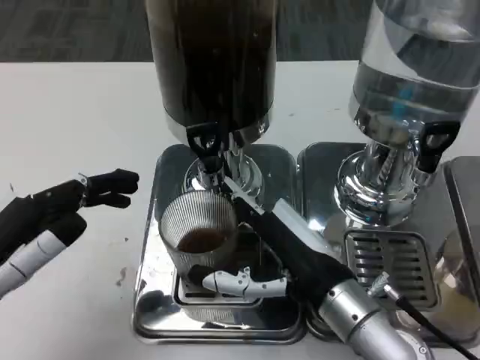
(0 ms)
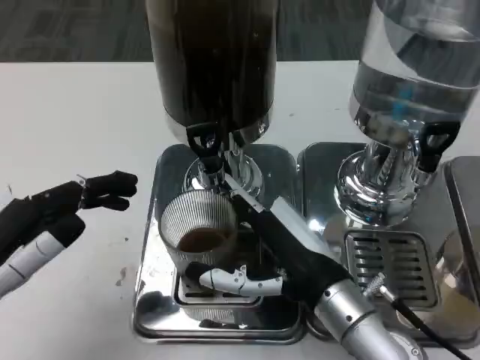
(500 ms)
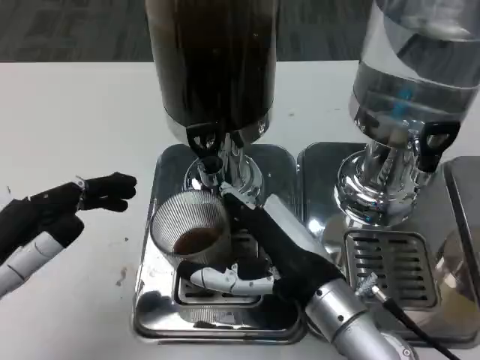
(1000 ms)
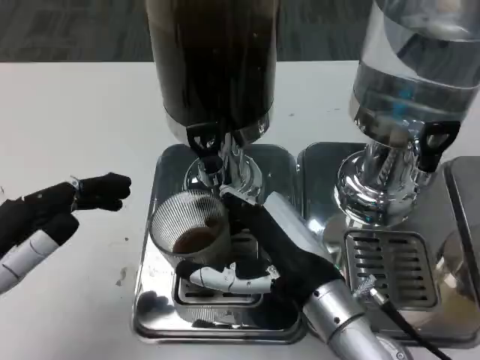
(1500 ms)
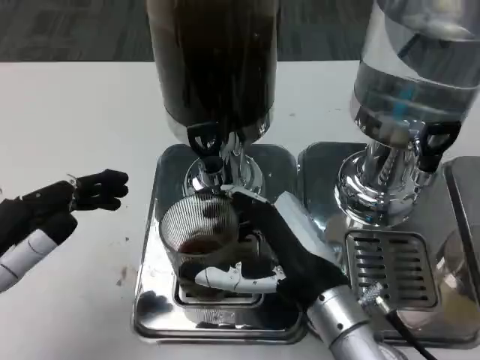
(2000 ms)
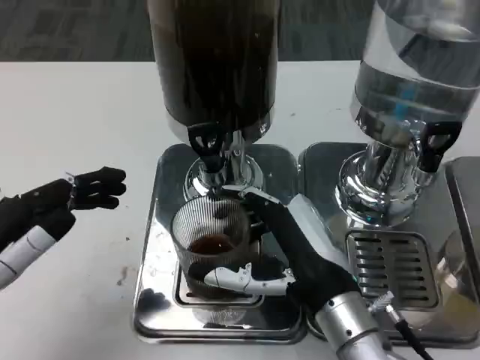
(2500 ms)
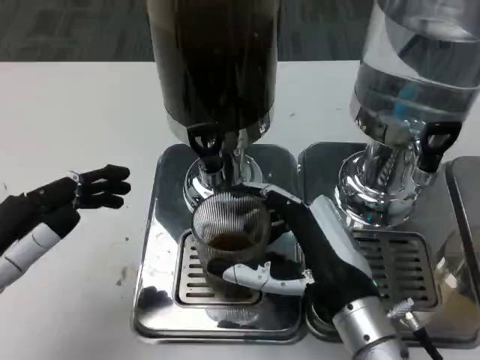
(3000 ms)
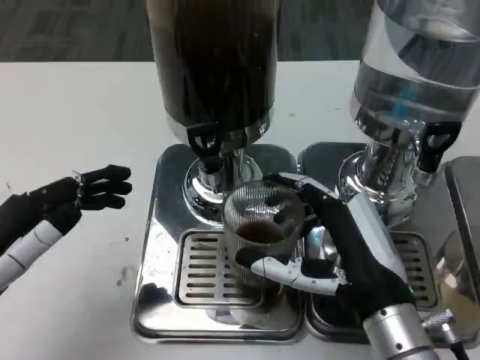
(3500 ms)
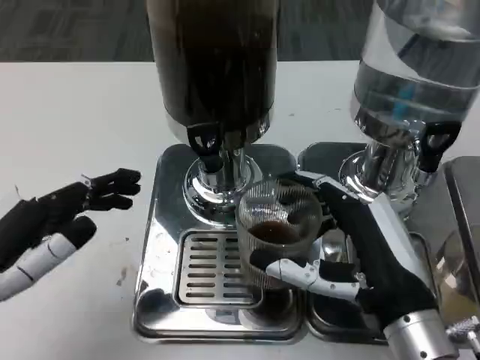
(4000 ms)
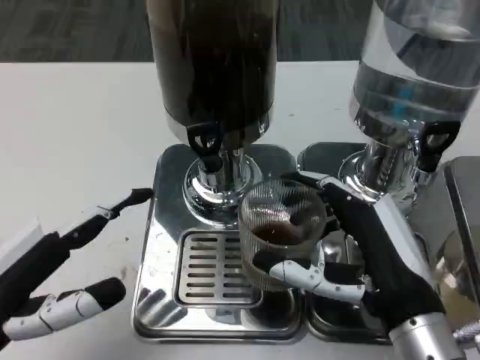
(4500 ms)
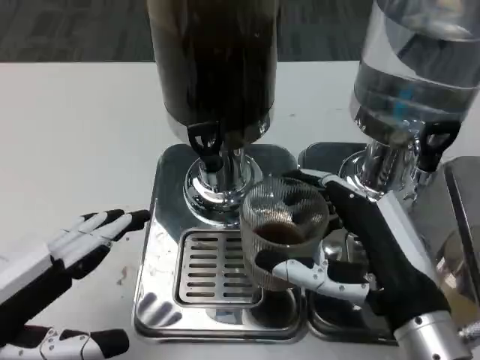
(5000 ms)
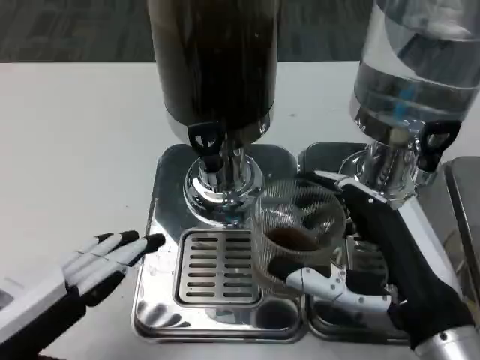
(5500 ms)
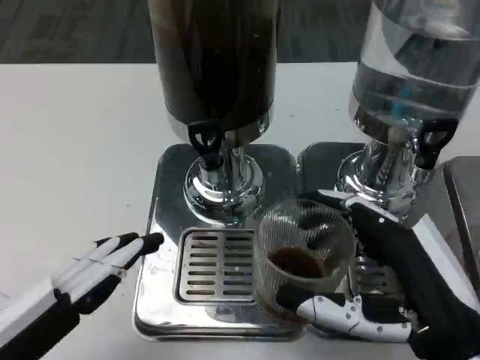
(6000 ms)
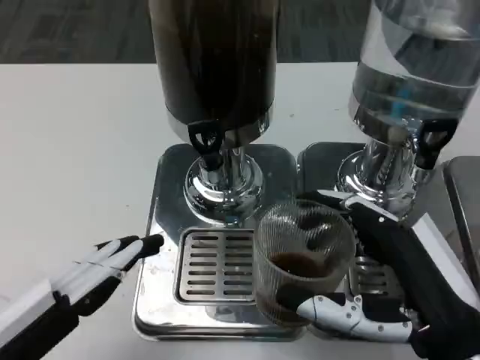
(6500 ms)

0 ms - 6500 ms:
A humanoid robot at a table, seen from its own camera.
Task of the whole recording: Grasp the cup under the faucet to collect the drink, then remove the cup.
0 ms - 2000 ms: The hands move only a little.
2000 ms - 4500 ms: The right hand moves to the right, some 5 cm.
4500 ms - 6500 ms: The right hand changes place by some 5 cm.

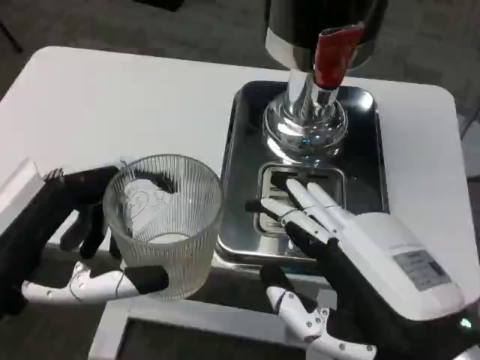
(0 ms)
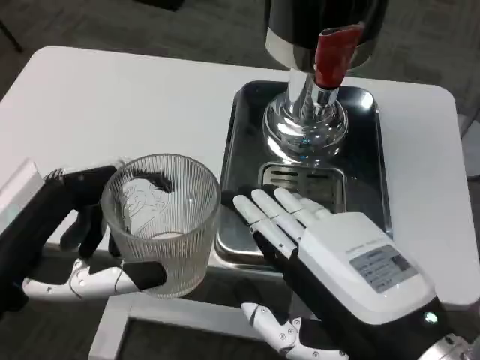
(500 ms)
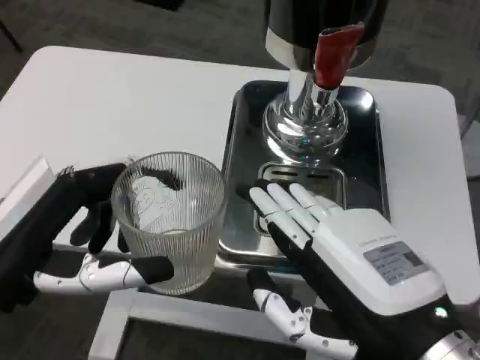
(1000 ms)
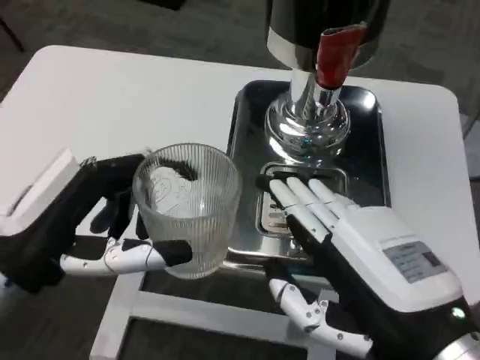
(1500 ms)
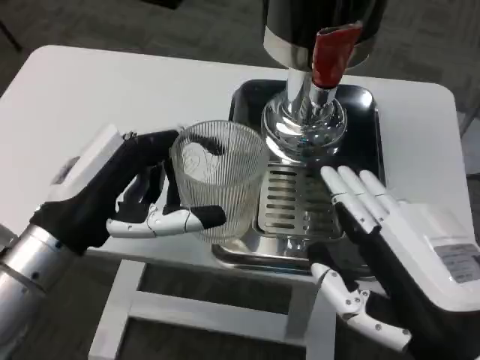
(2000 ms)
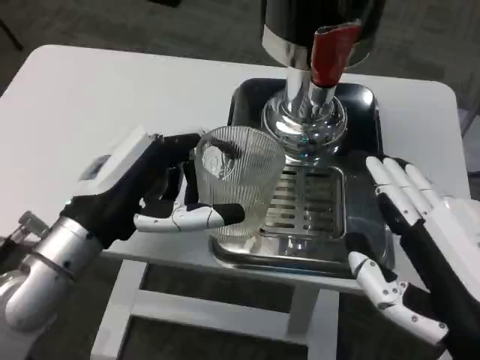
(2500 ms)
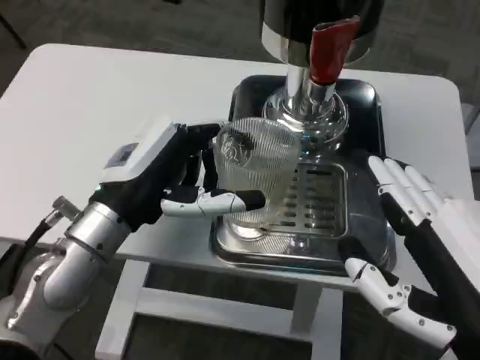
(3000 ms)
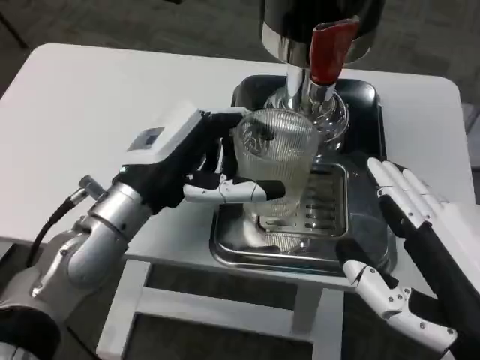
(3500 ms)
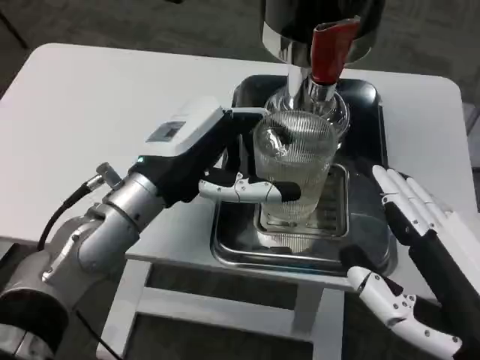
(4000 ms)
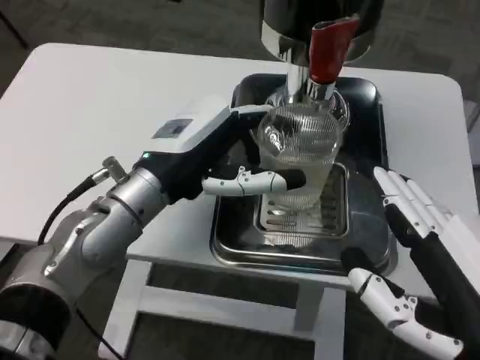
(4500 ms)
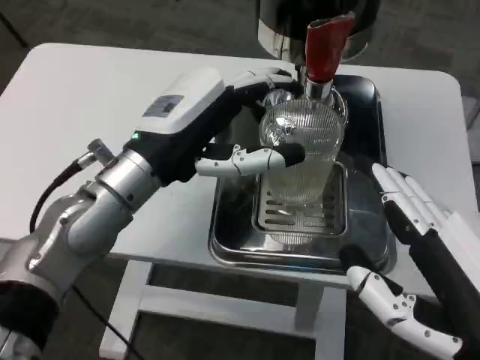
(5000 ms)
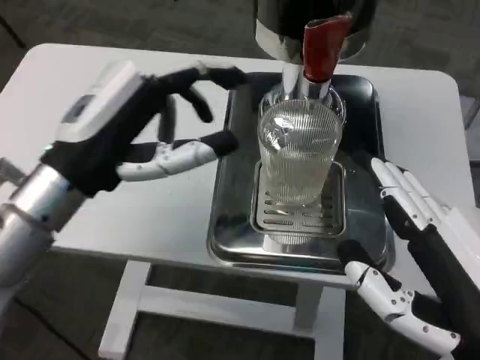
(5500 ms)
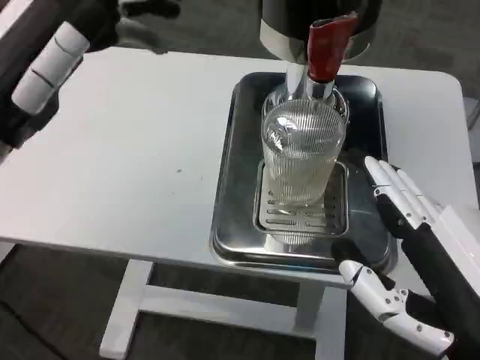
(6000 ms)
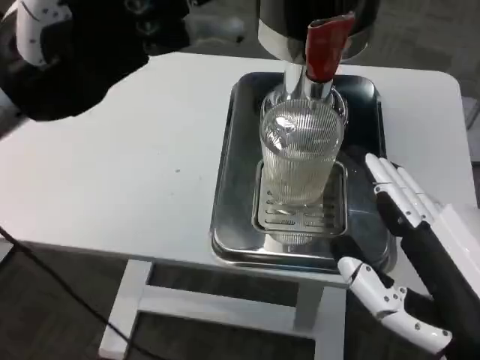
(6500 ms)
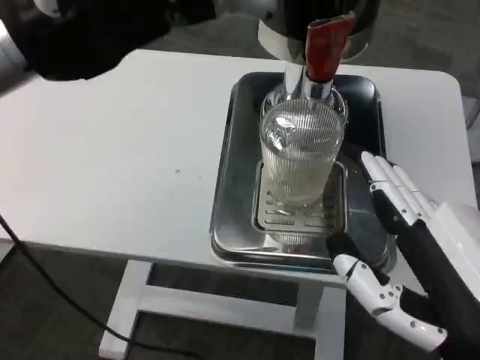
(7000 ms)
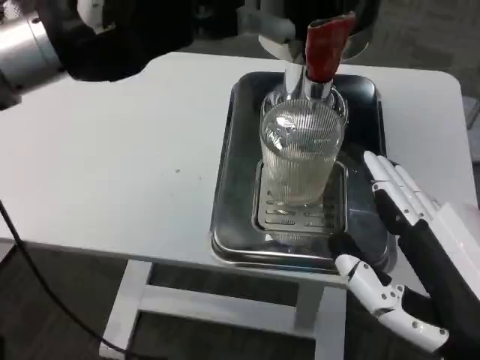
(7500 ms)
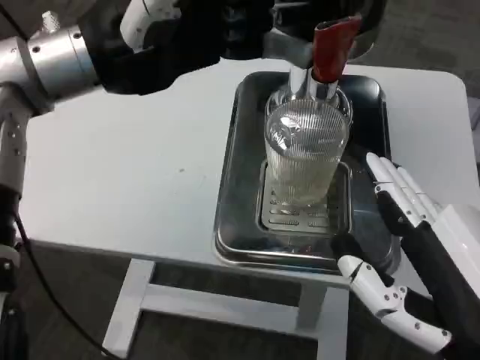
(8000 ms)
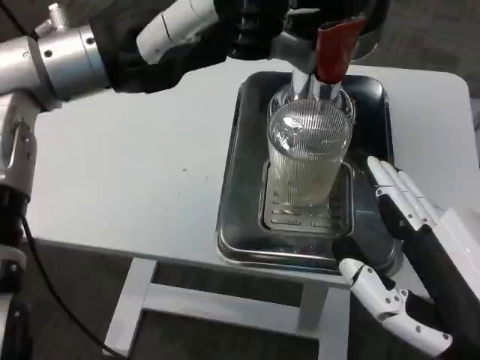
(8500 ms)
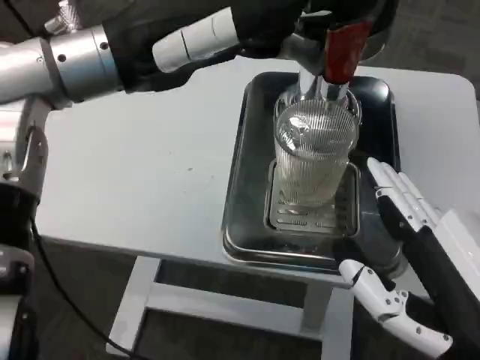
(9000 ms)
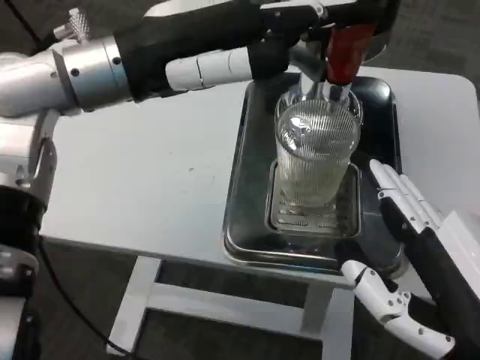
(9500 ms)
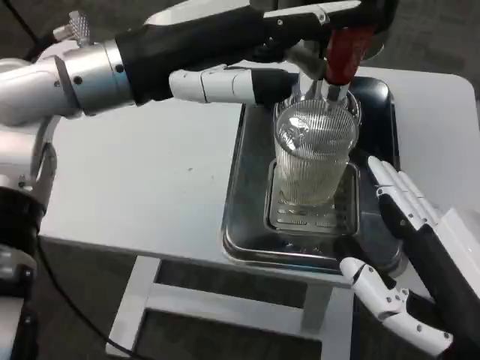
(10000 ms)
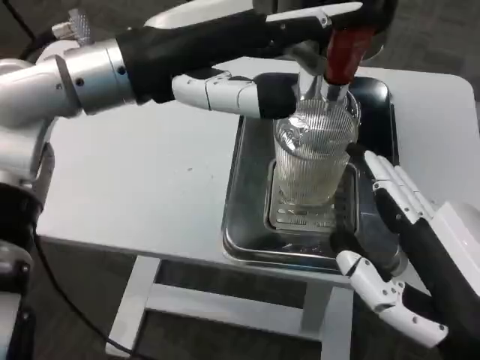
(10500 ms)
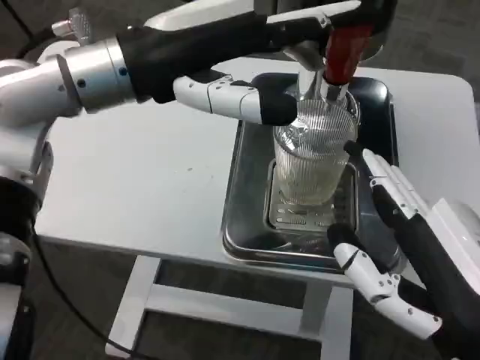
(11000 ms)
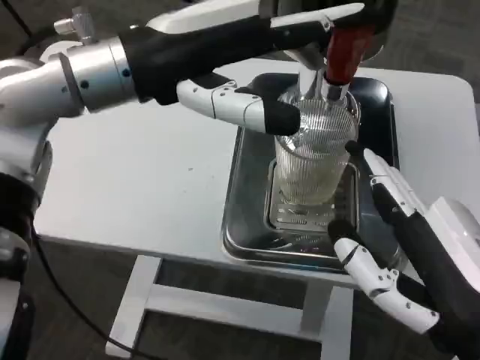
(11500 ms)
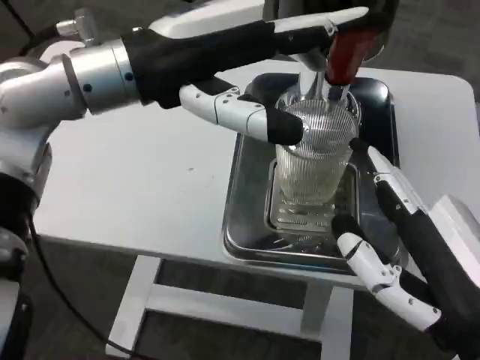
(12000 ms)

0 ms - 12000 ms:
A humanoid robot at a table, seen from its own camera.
Task of the whole recording: Grasp the cup under the faucet to collect the drink, then remove the cup.
0 ms - 2000 ms: The left hand shifts roughly 10 cm forward.
2000 ms - 4000 ms: The left hand goes some 10 cm forward and to the right.
4000 ms - 6000 ms: The left hand heads to the left, upward and backward, covering roughly 15 cm.
6000 ms - 8000 ms: The left hand goes about 10 cm upward and to the right.

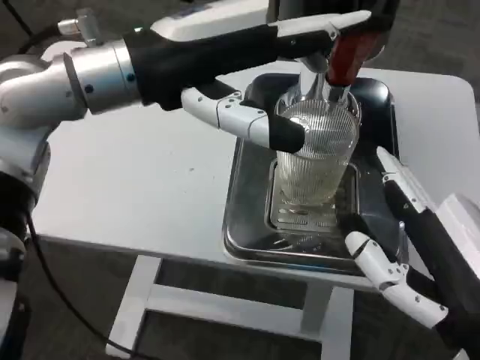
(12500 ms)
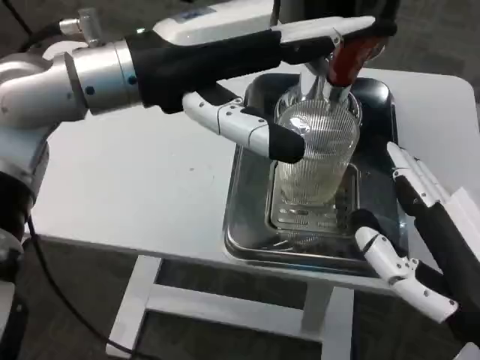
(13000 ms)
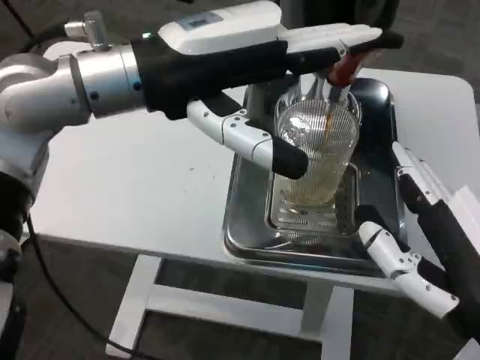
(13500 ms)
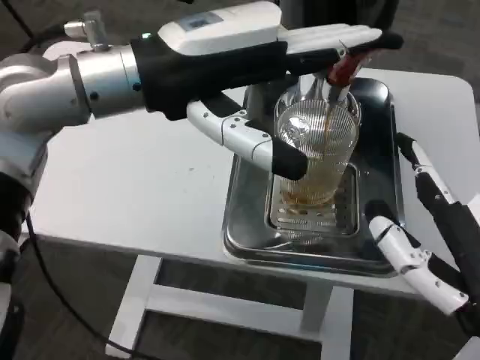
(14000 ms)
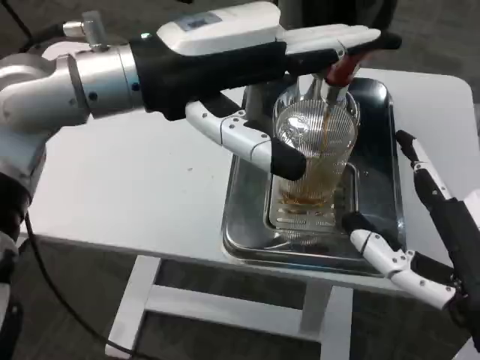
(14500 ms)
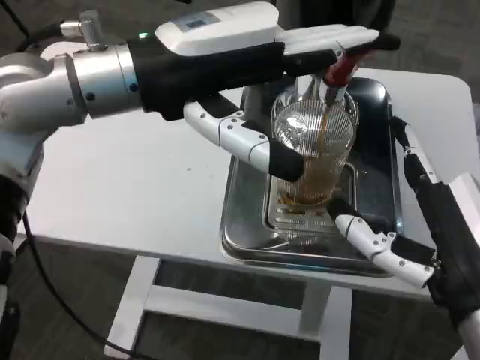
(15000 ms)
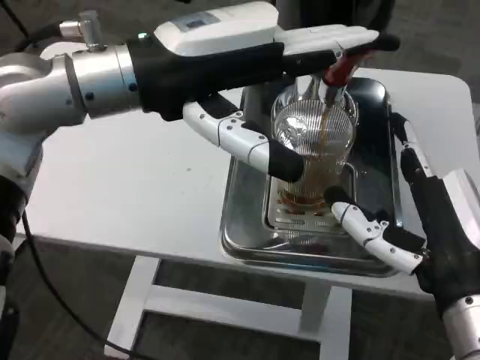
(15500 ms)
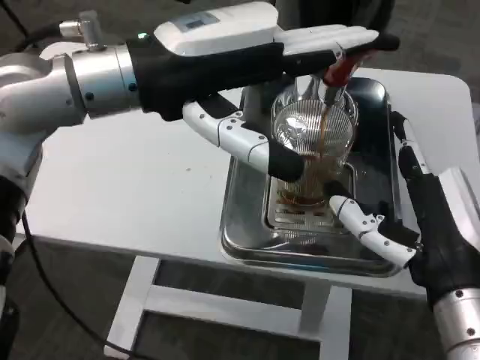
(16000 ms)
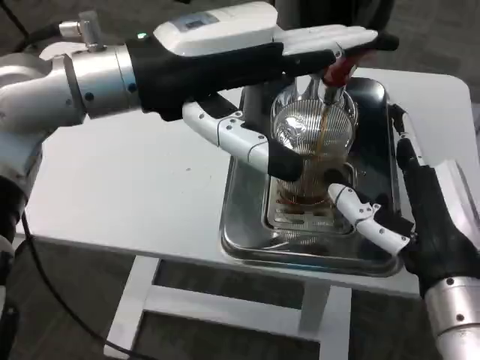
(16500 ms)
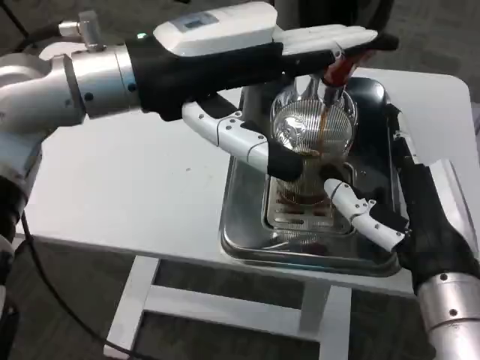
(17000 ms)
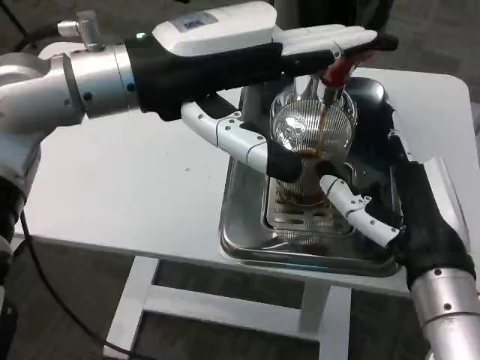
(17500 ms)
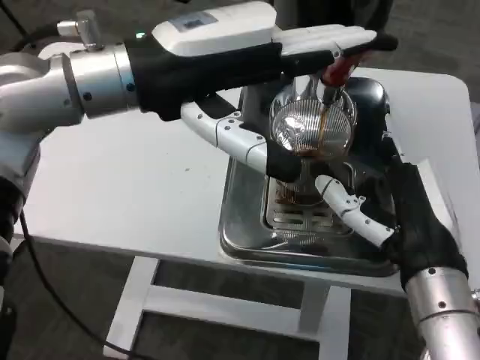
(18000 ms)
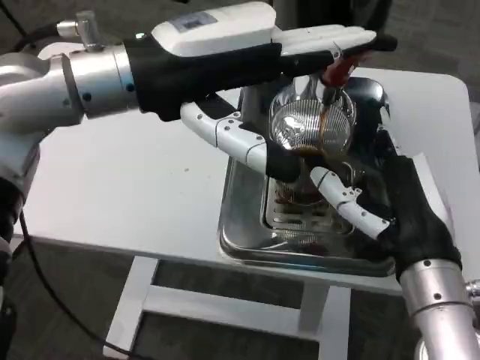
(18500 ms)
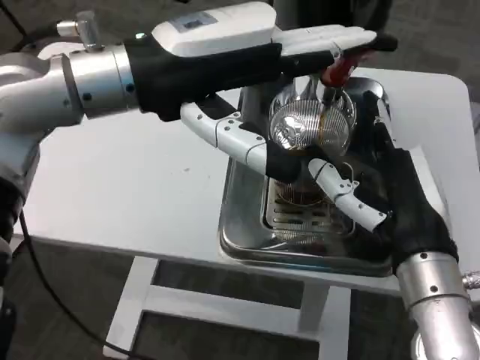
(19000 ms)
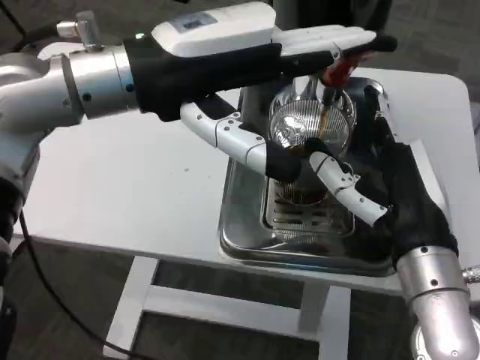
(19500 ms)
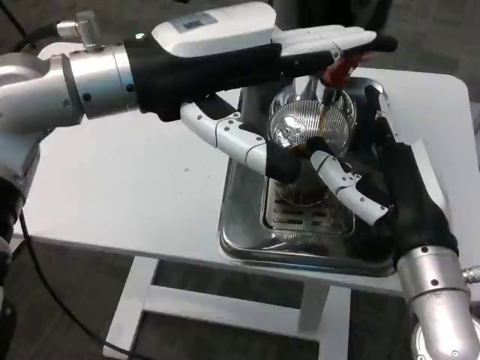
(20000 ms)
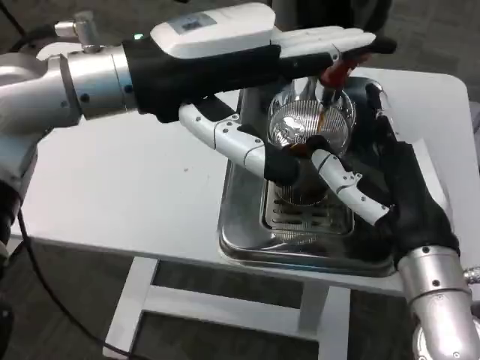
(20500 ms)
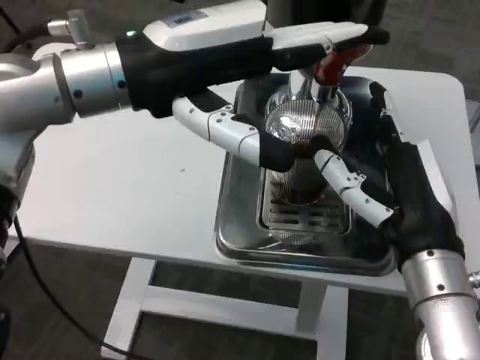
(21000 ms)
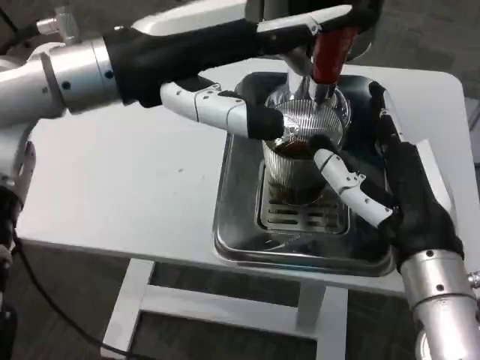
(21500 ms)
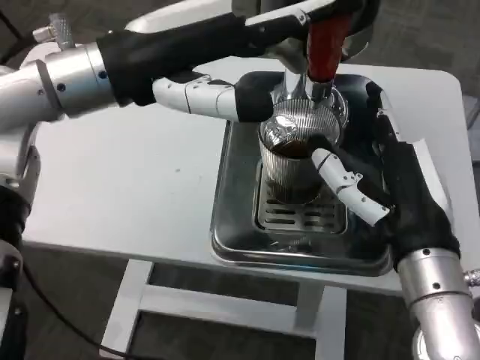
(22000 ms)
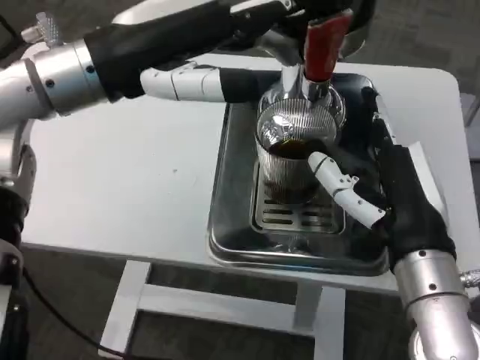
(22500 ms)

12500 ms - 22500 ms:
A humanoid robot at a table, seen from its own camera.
Task of the whole recording: Grasp the cup under the faucet to collect the drink, then remove the cup.
14500 ms - 16500 ms: The right hand is displaced forward by about 5 cm.
16500 ms - 18500 ms: There are only small adjustments of the hands.
18500 ms - 20500 ms: Both hands stay about where they are.
